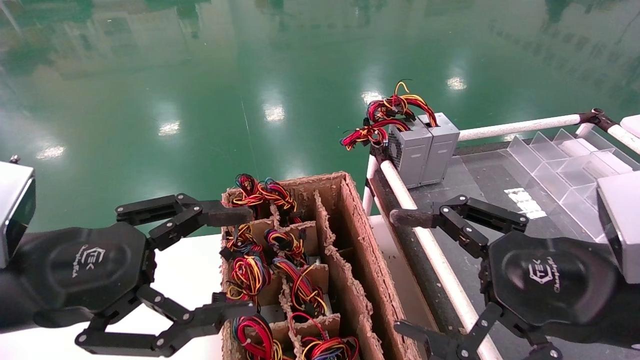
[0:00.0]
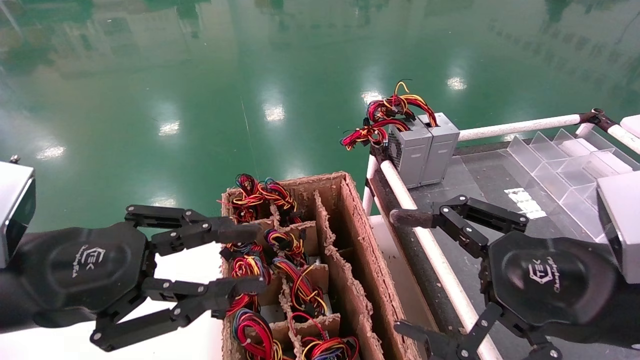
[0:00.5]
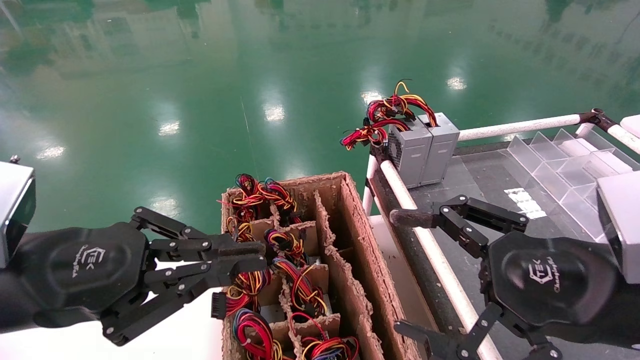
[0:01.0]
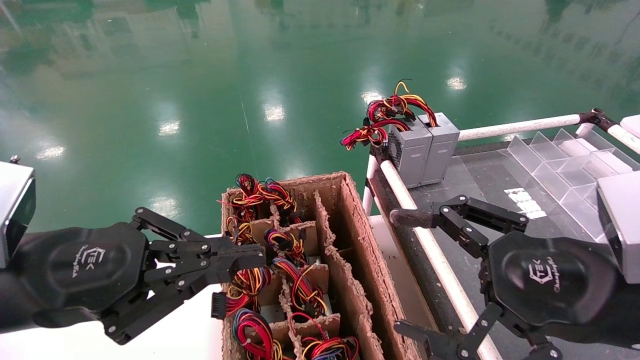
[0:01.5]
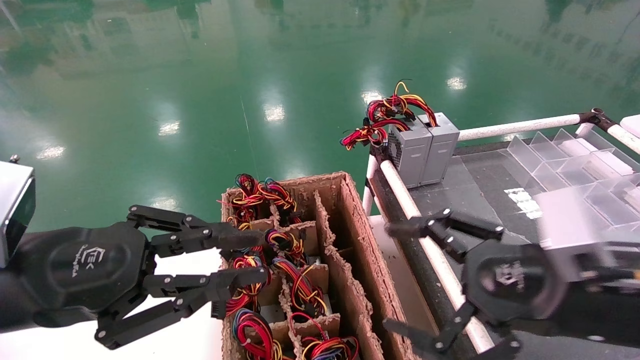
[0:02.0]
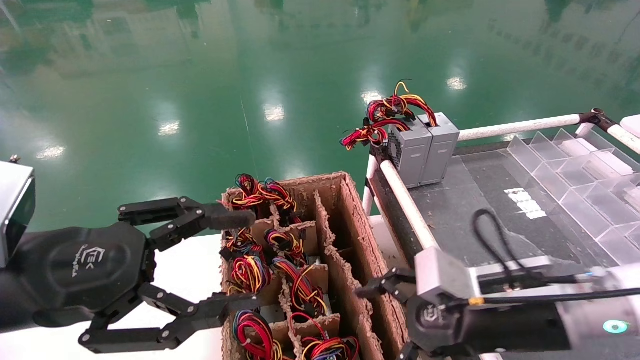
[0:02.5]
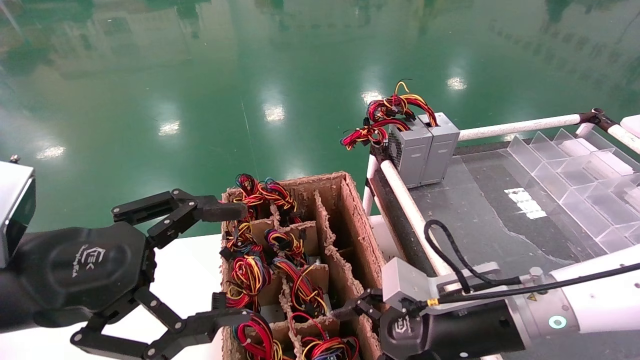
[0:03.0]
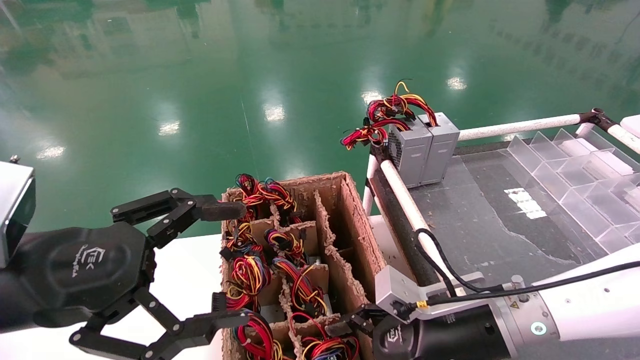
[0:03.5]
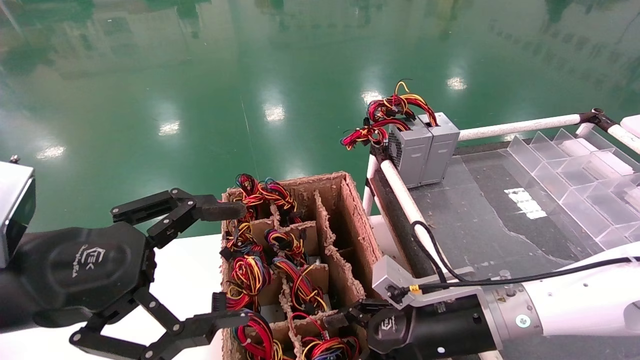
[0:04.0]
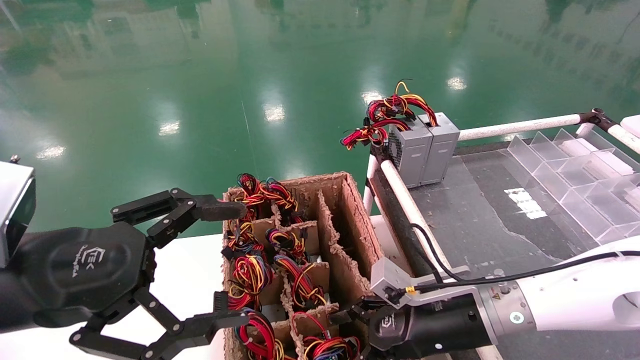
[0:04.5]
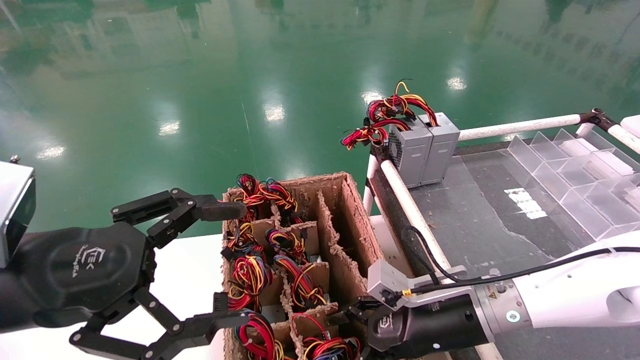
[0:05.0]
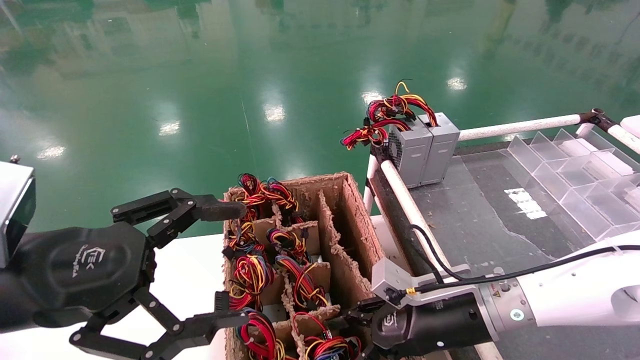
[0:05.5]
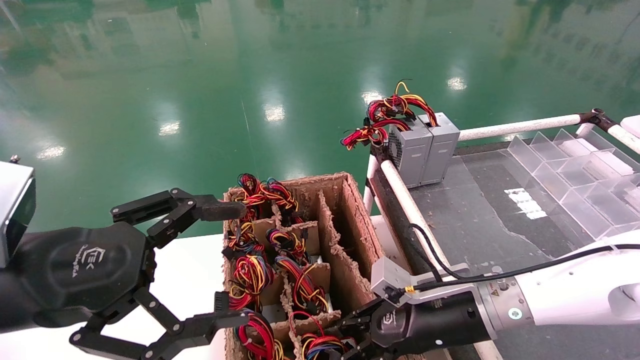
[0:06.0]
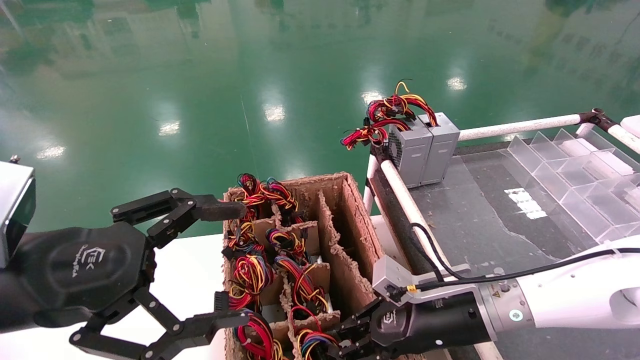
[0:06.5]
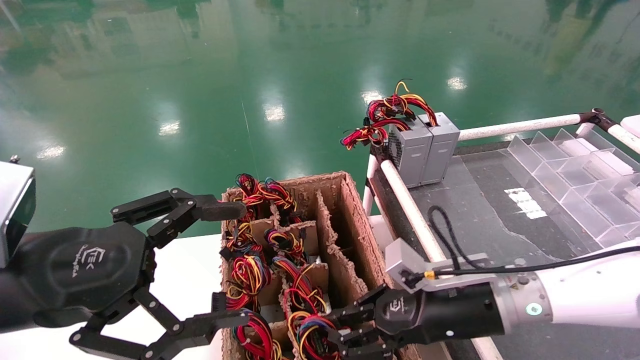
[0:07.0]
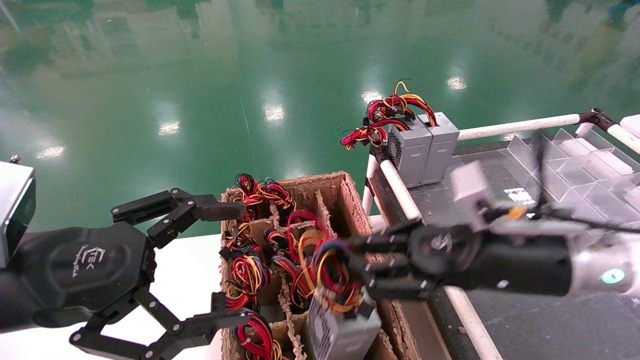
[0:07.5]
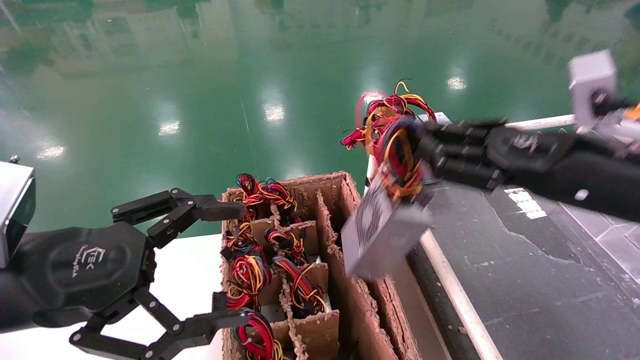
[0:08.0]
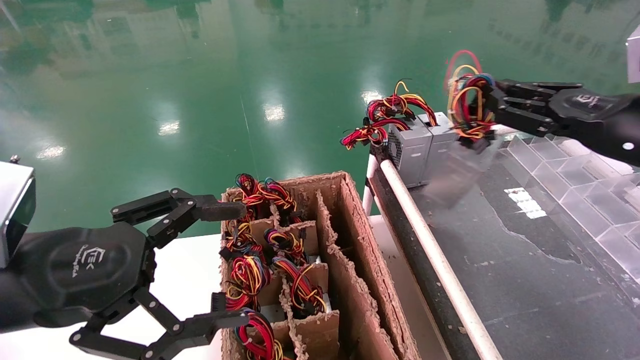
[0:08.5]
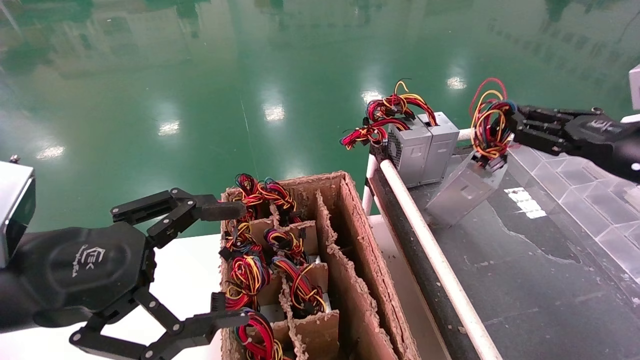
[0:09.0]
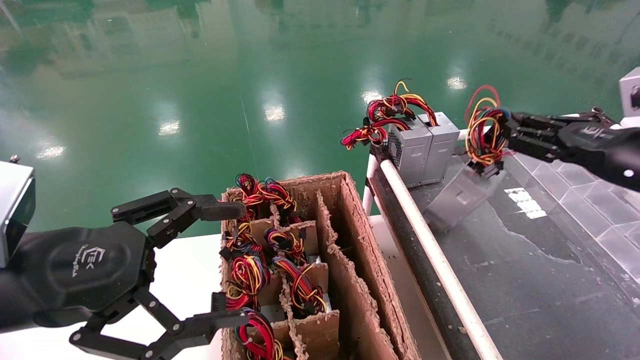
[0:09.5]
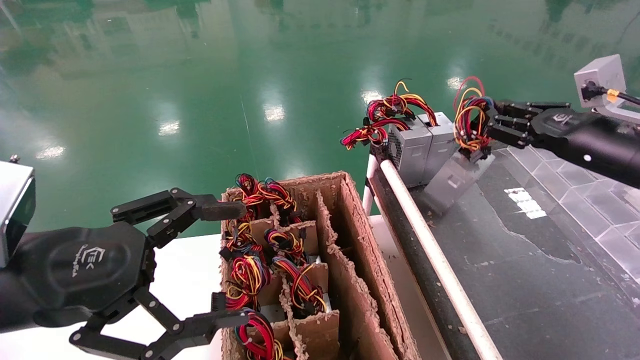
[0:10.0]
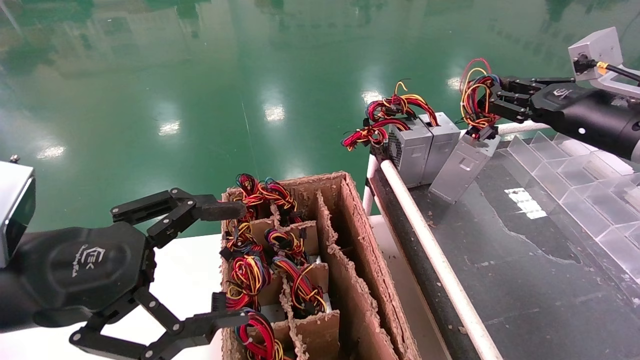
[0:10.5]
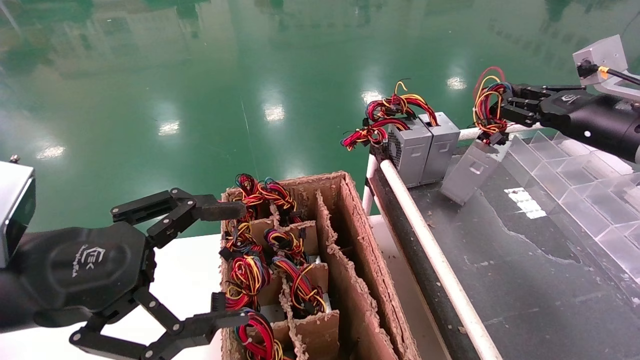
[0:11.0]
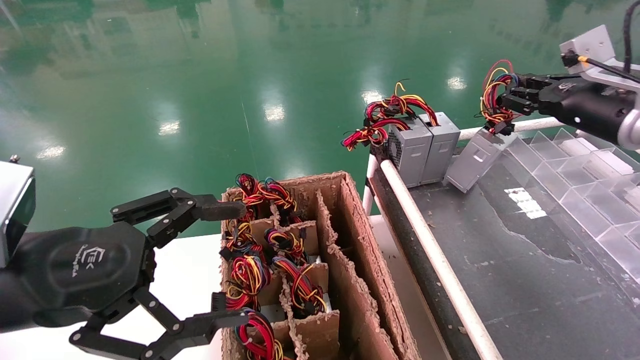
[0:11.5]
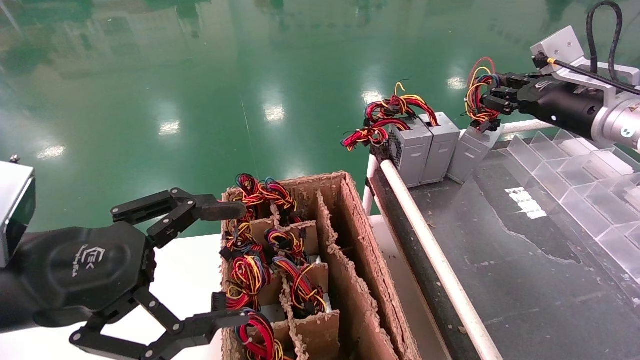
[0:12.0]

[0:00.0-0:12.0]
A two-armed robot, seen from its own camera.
Step, 0:02.0 to 0:06.5: Grab and lift the power supply from the large box.
0:00.0 to 0:02.0: The left gripper closes.
0:02.0 to 0:04.0: The left gripper opens, while the right gripper goes about 15 cm downward, forward and to the left.
0:04.0 to 0:06.0: The right gripper closes its fingers.
0:06.0 to 0:08.0: The right gripper goes about 20 cm upward and to the right.
0:08.0 to 0:10.0: The right gripper travels to the right and forward by roughly 10 cm.
0:10.0 to 0:12.0: The right gripper travels forward by roughly 5 cm.

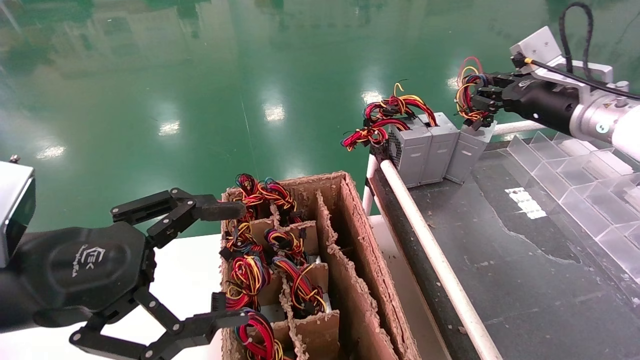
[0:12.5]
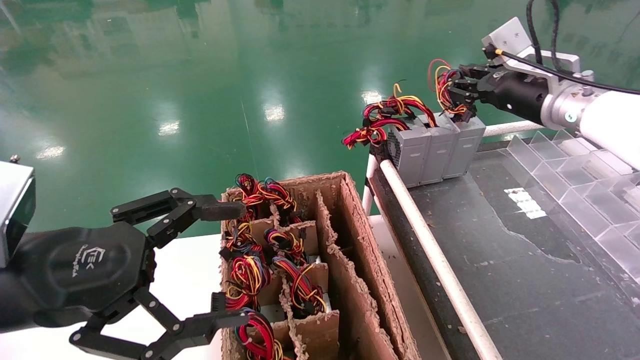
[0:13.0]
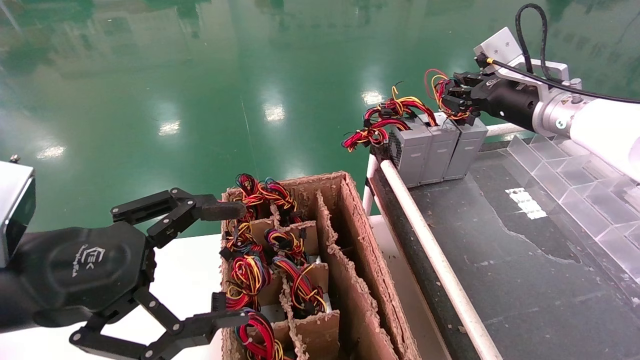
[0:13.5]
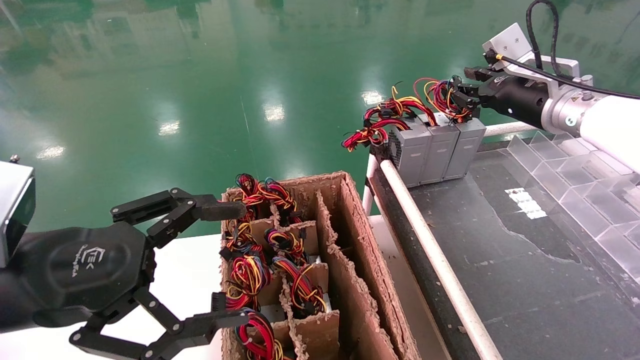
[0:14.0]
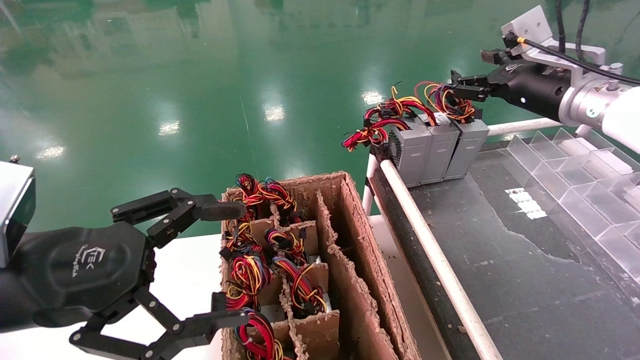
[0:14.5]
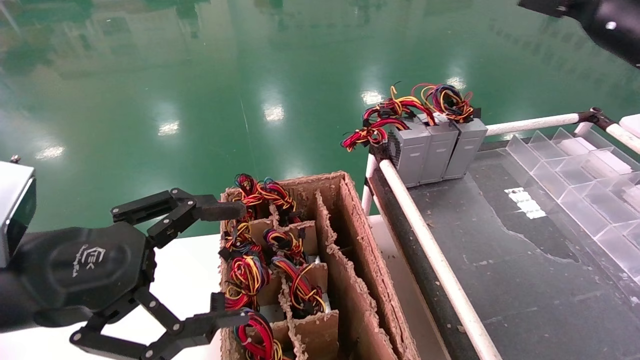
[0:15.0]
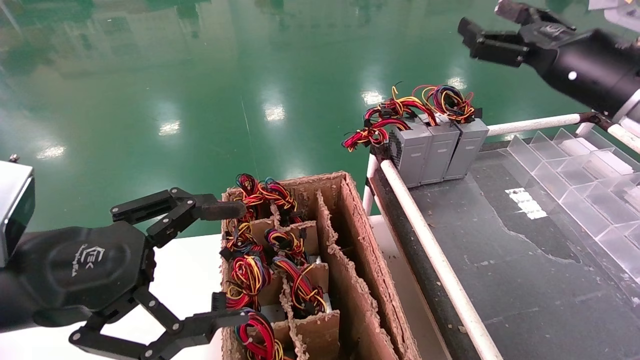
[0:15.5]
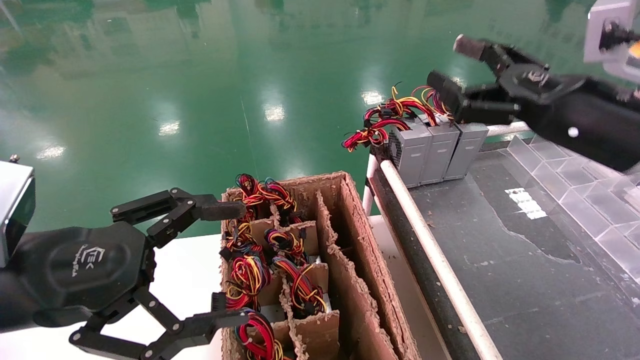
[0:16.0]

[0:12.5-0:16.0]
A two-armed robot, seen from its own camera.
0:12.5 to 0:14.5: The right gripper opens.
0:14.5 to 0:16.0: The right gripper moves backward, approximately 15 cm, and opens its fingers.
